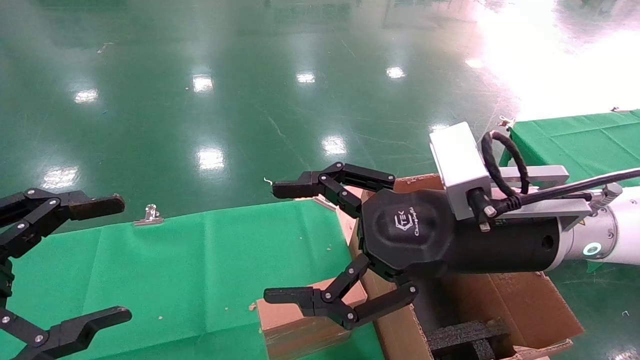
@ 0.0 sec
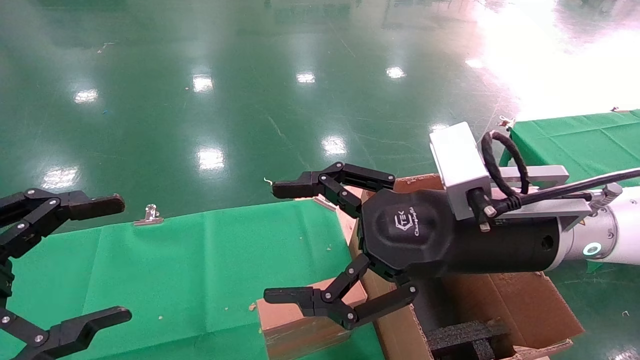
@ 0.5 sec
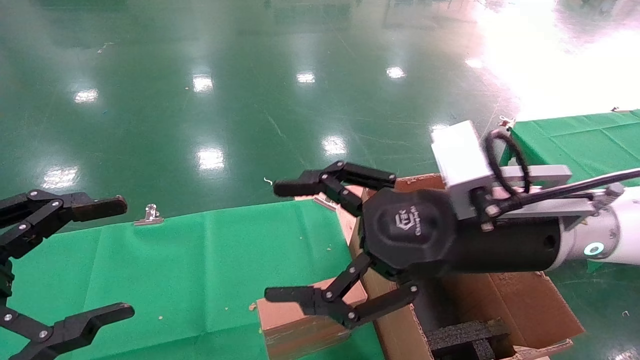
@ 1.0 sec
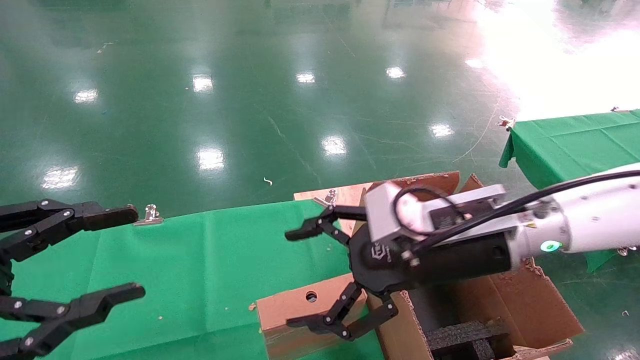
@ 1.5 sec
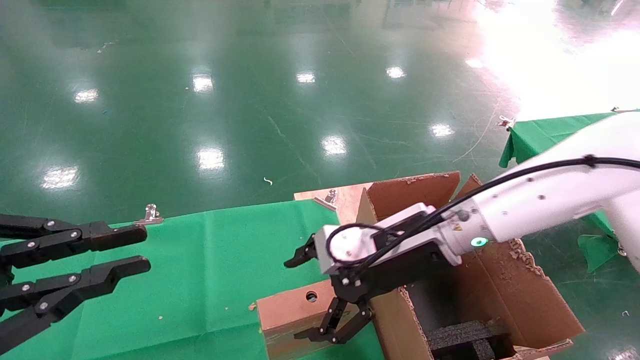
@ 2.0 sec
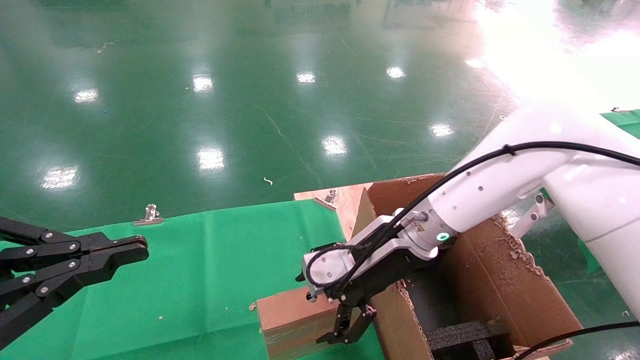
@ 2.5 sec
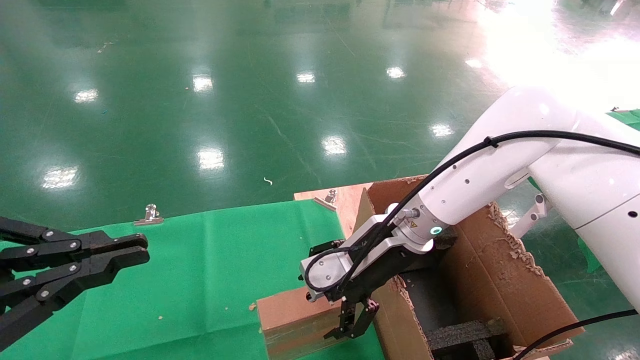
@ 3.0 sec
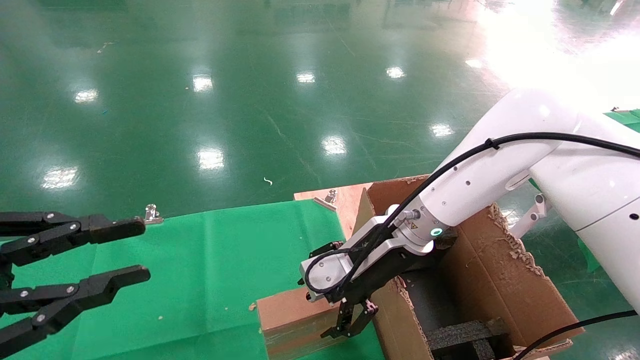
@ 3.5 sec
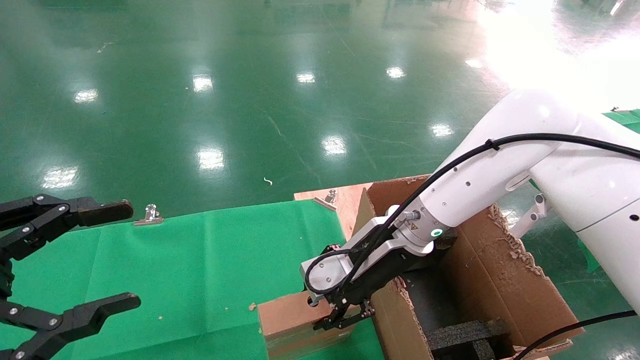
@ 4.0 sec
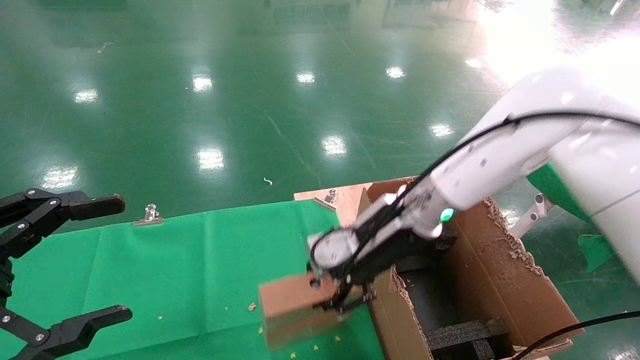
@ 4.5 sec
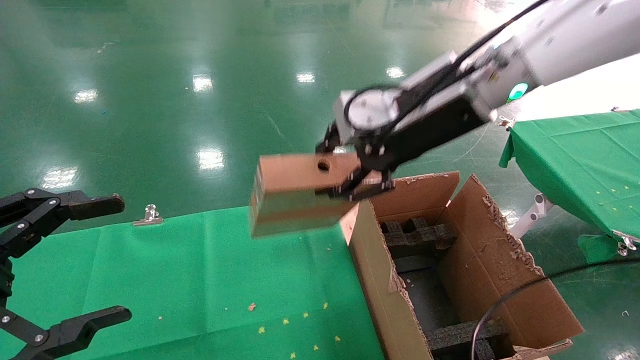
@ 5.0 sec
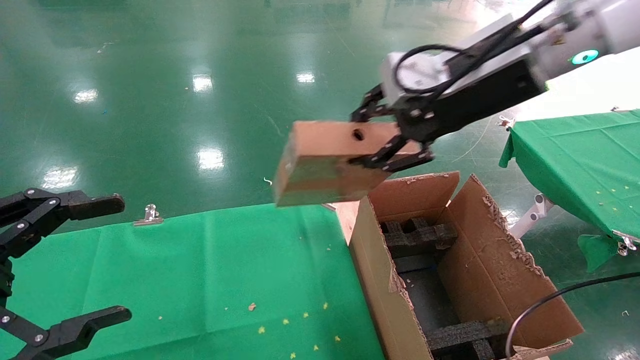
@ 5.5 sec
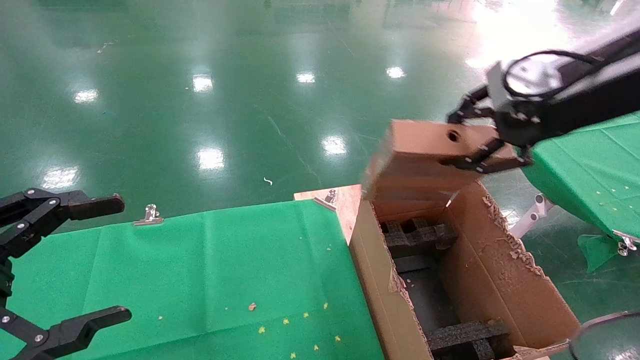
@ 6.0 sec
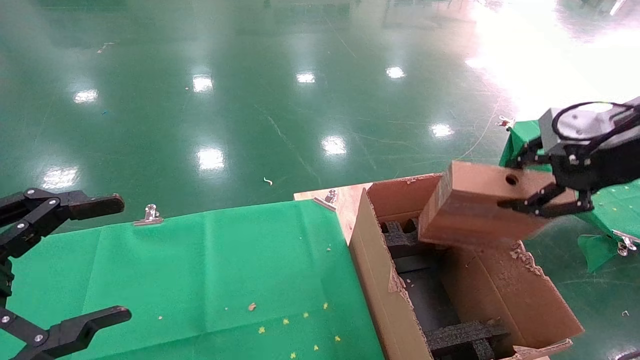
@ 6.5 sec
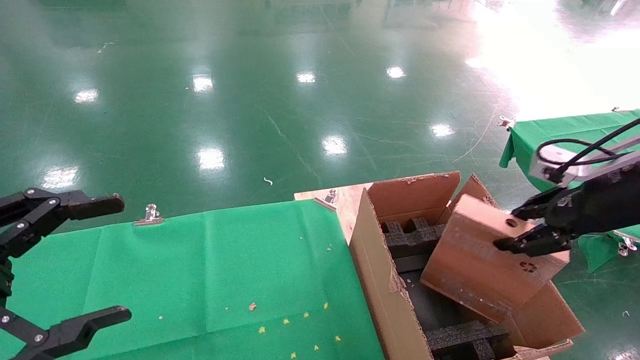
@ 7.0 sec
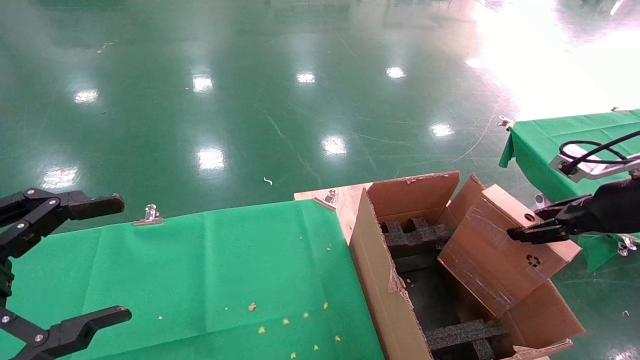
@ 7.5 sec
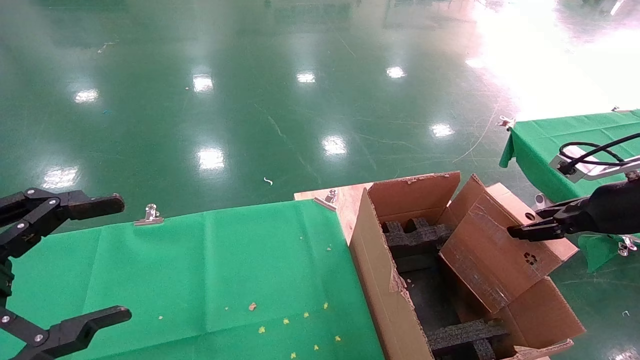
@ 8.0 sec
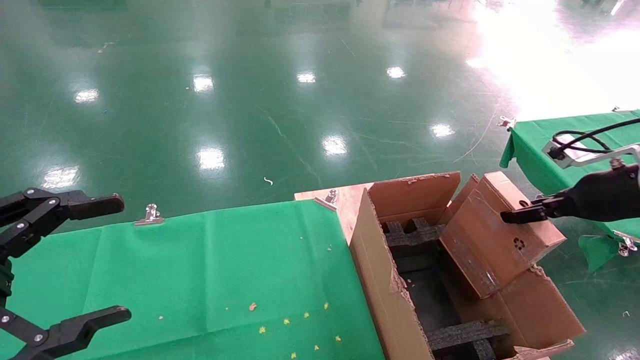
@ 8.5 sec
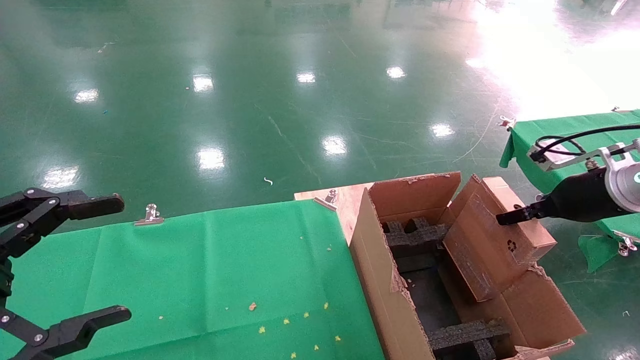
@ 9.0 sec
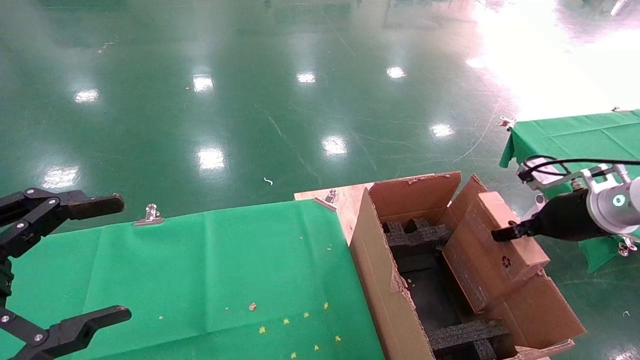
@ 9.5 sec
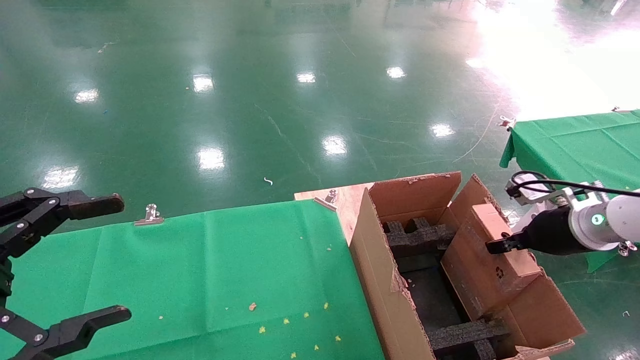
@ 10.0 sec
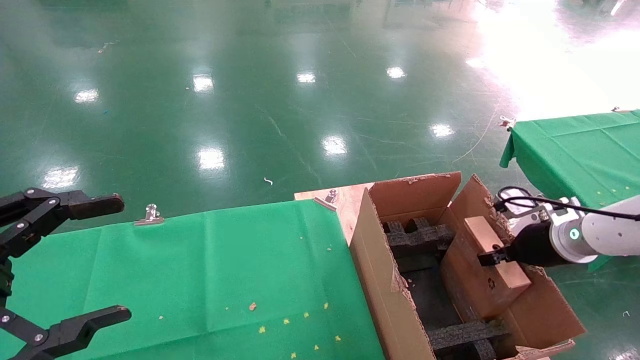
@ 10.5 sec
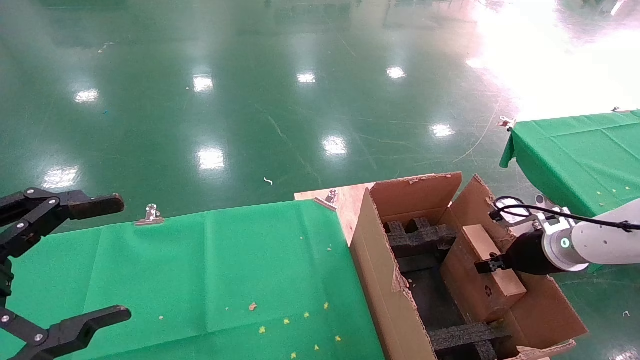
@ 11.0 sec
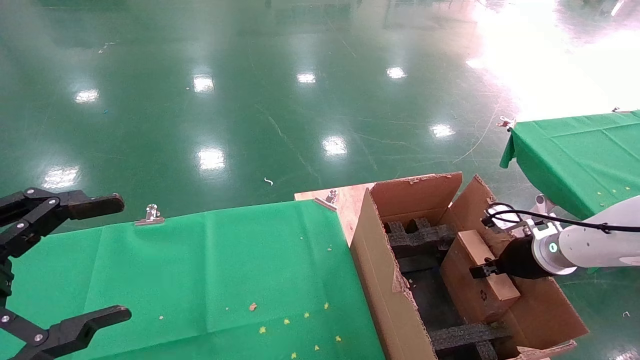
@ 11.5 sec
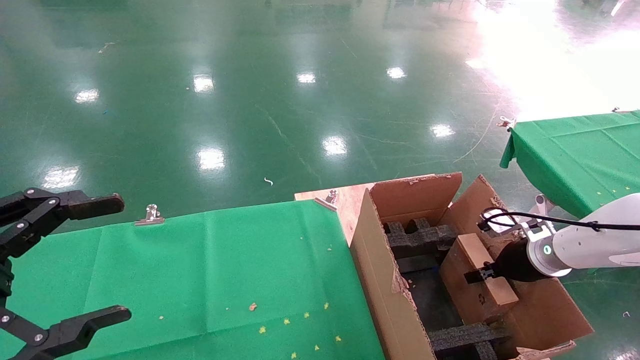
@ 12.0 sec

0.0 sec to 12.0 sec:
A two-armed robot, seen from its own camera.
Task of the whole recording: using a robotic arm to pick up a cardboard box and palace it the carton.
Step, 1.5 sec to 4.0 sec: Pick up the mouse and the power cord paper box.
0.0 sec to 2.0 sec: The left gripper closes. Meanwhile the right gripper moves forward and downward, approximately 10 cm.
2.0 sec to 4.0 sec: The right gripper closes.
4.0 sec to 6.0 sec: The left gripper opens. Meanwhile the right gripper shifts some 30 cm upward, to the right and backward, and closes up.
6.0 sec to 8.0 sec: The right gripper heads downward and to the right, covering roughly 20 cm.
8.0 sec to 10.0 sec: The right gripper heads downward, forward and to the left, covering roughly 10 cm.
10.0 sec to 12.0 sec: The right gripper moves downward, roughly 10 cm.

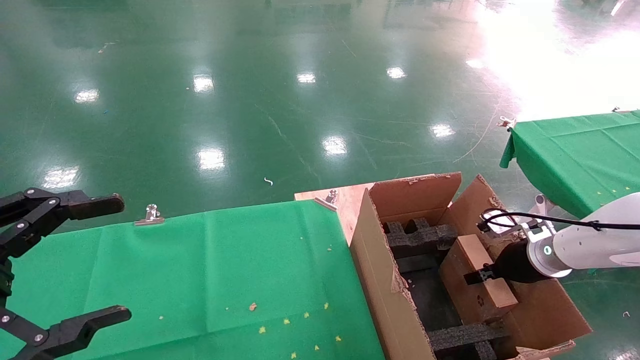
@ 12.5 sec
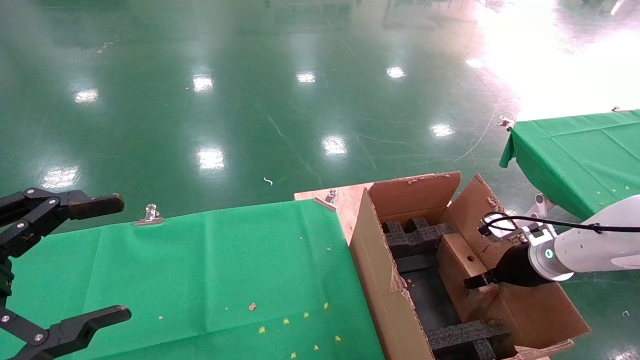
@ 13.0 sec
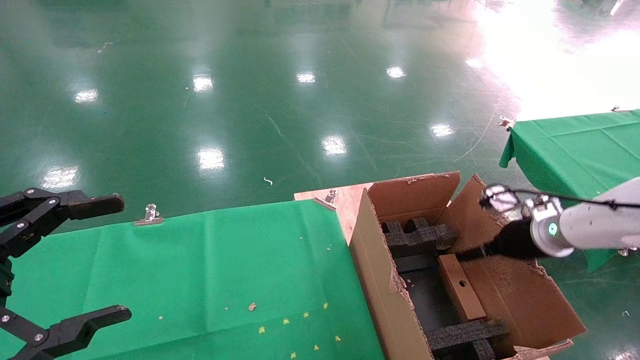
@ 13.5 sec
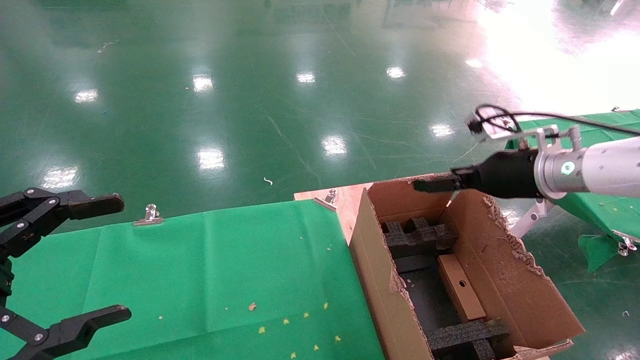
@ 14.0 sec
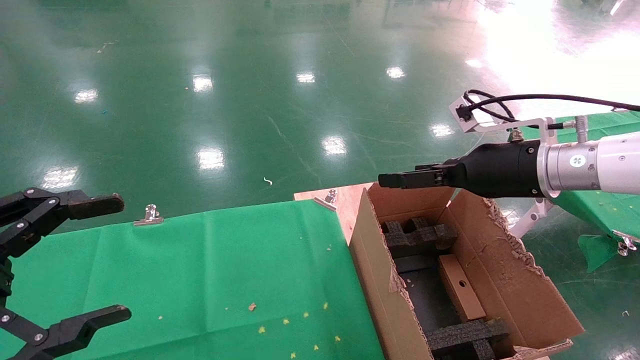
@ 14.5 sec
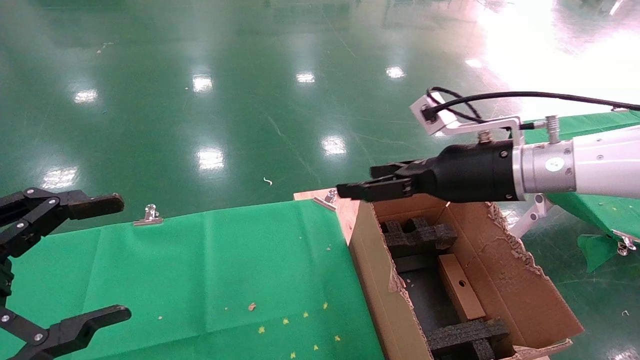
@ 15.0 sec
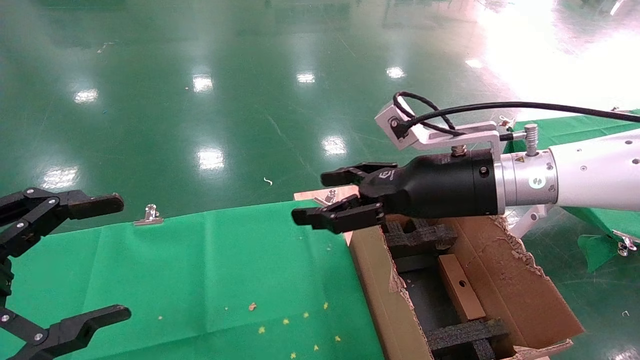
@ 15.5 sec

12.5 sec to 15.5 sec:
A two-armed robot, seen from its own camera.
Task of the whole recording: using a robotic arm to pick up a cardboard box and palace it the carton.
12.5 sec to 14.0 sec: The right gripper shifts roughly 15 cm upward and to the left, and opens up.
14.0 sec to 15.5 sec: The right gripper travels to the left by approximately 15 cm.
